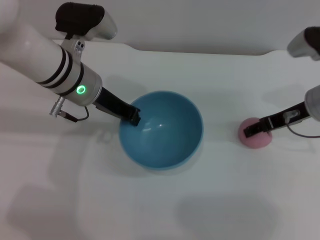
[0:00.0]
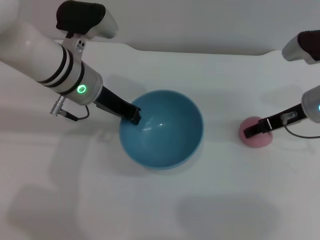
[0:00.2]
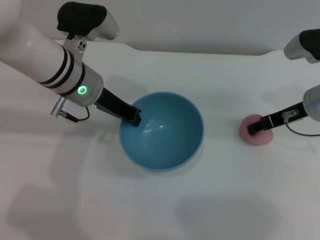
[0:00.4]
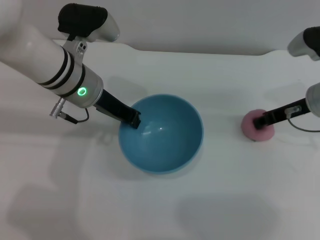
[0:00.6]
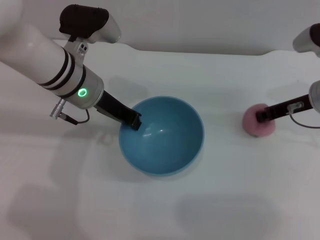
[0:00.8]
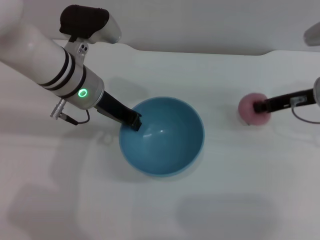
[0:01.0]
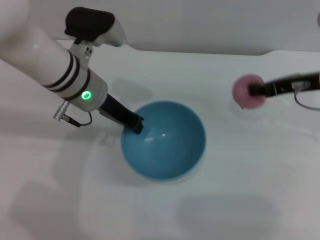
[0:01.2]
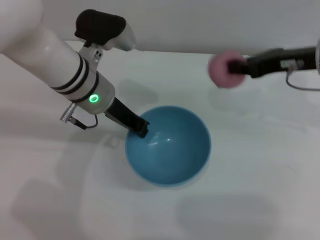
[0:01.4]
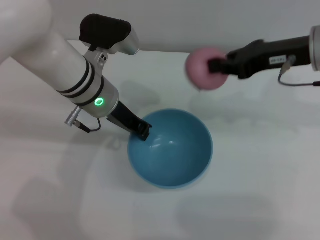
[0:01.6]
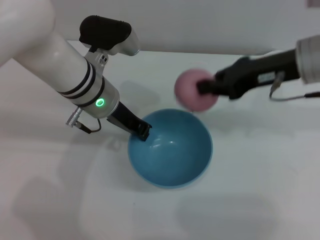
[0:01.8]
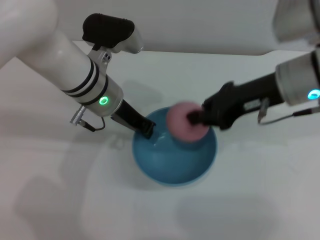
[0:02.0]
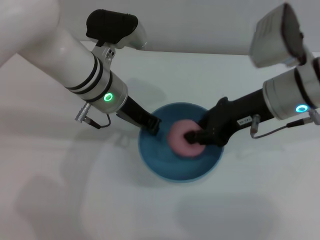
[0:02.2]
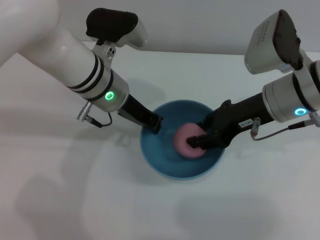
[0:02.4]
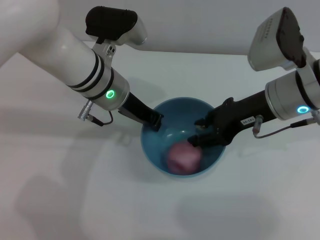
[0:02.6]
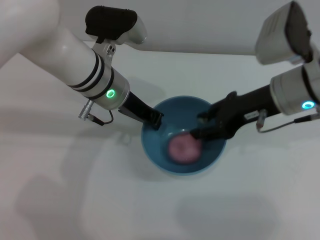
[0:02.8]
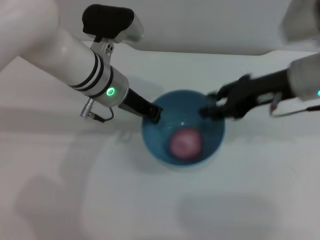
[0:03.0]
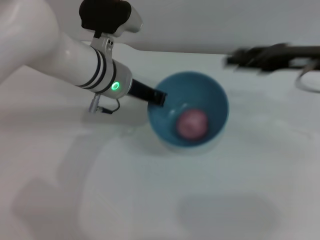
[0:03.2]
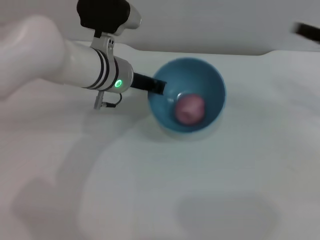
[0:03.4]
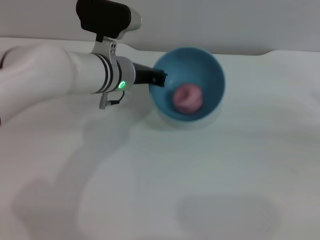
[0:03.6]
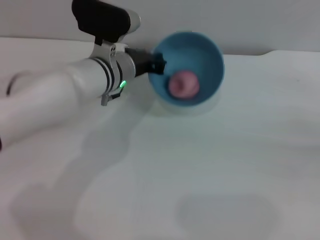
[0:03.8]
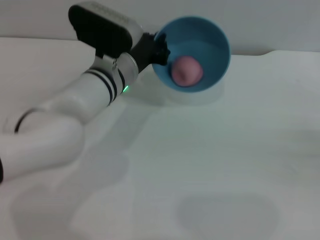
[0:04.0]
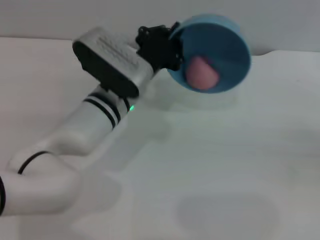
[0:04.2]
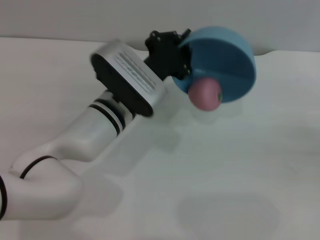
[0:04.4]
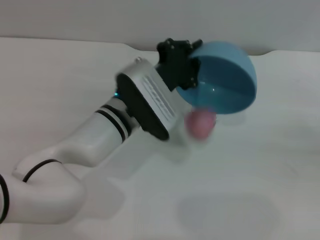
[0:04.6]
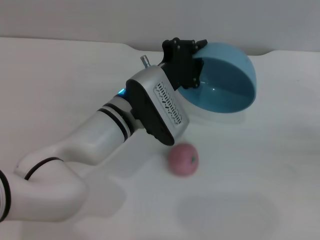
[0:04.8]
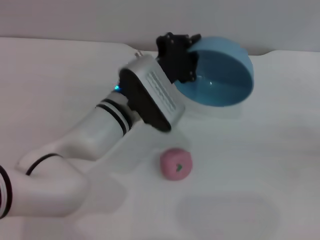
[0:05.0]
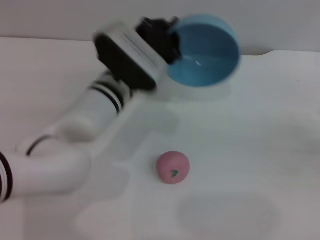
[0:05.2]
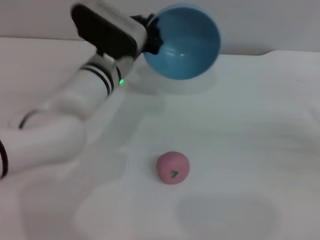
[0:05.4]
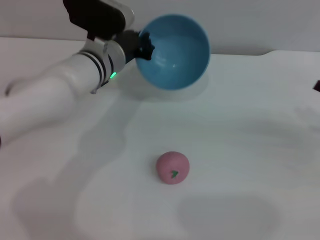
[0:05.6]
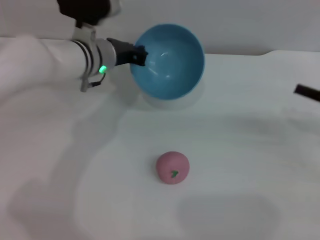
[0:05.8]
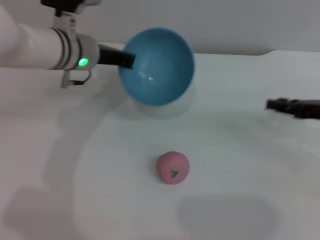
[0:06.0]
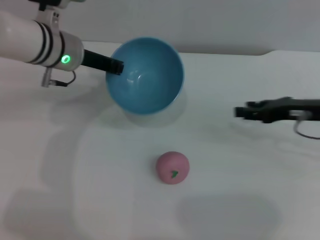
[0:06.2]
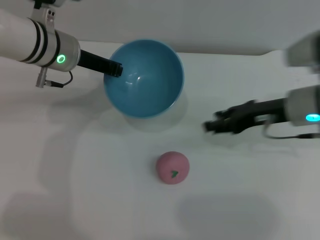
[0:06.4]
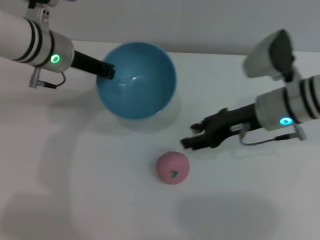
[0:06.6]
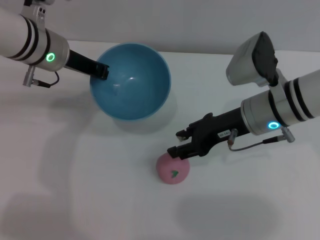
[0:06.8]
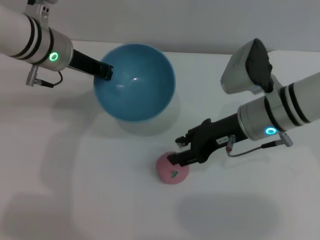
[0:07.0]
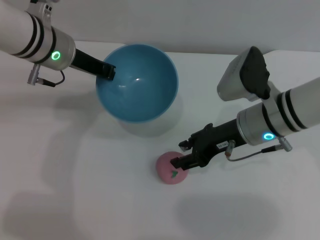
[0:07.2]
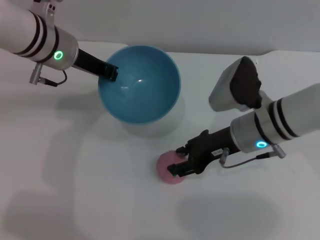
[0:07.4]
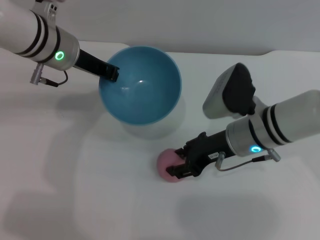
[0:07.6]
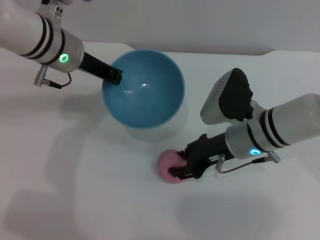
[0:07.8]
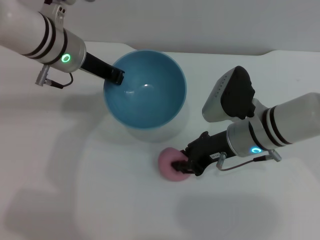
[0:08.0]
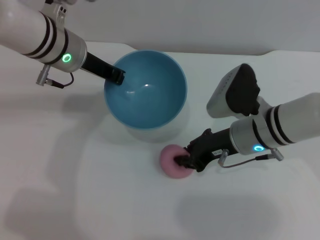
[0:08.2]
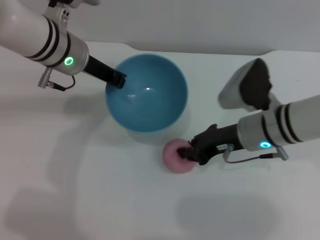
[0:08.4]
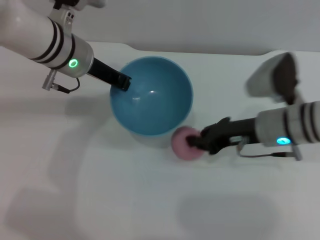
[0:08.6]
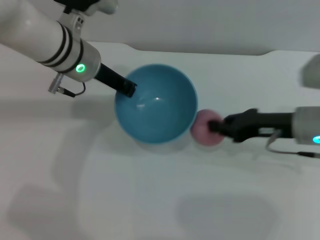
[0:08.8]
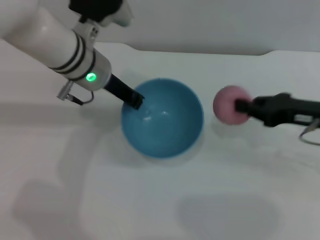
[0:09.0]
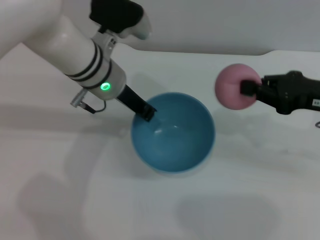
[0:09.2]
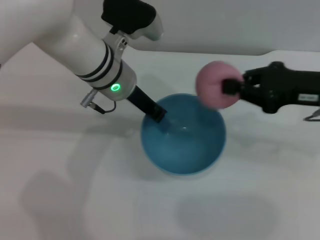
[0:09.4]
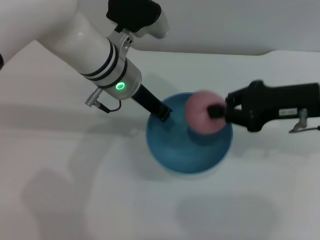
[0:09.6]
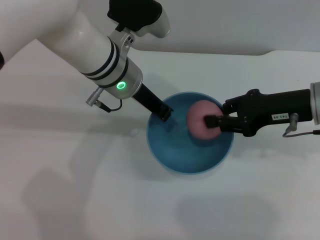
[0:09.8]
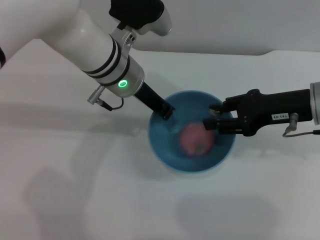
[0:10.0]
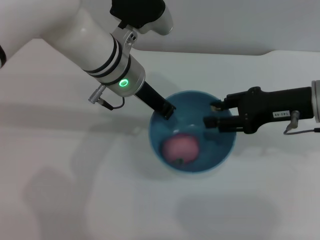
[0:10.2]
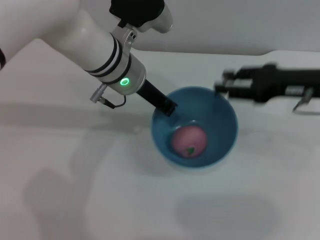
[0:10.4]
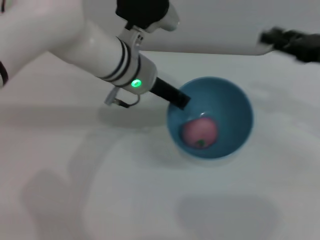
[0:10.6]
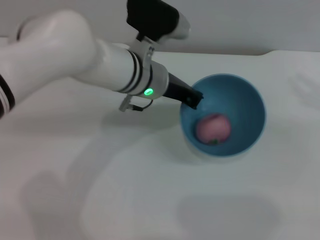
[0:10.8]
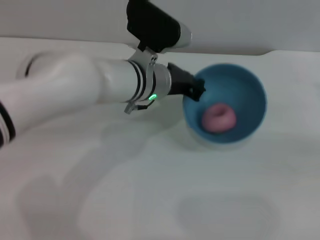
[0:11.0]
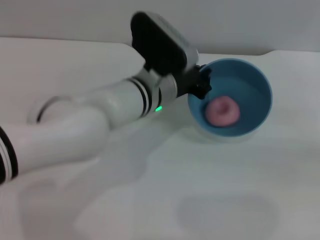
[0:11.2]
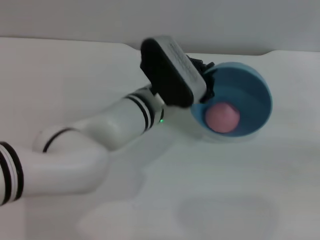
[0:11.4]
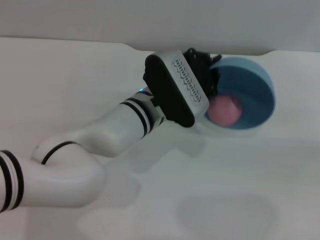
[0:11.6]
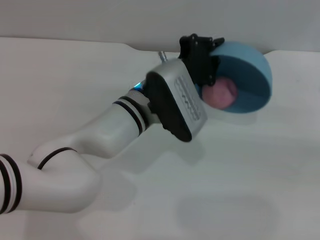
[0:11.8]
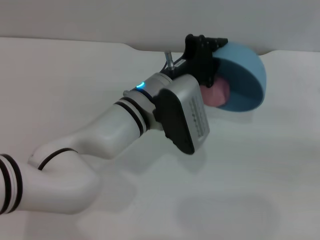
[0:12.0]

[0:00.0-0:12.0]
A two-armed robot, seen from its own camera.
Task of the whole recording: put the peach into the blue bowl and pour it out repeatedly.
Step, 1.6 to 3.2 s: Place the peach into the bowl.
Step, 3.4 to 4.6 s: Pour the peach out of bowl.
Step, 4.8 to 8.6 s: Pick up the peach with the right gripper.
Step, 8.8 to 10.0 s: Place the peach into the bowl.
0.0 to 1.6 s: The right gripper is displaced upward by roughly 10 cm, and closes up.
1.6 to 3.0 s: The right gripper opens.
3.0 to 4.4 s: The right gripper goes approximately 25 cm to the right and downward. Meanwhile the left gripper heads downward, covering about 5 cm.
4.4 to 6.0 s: The left gripper heads to the left, forward and upward, covering some 15 cm; the right gripper heads to the left and forward, covering some 10 cm.
6.0 to 7.6 s: The right gripper moves to the left, roughly 20 cm.
7.6 to 9.0 s: The right gripper goes roughly 15 cm to the right, and closes. The left gripper shifts by roughly 5 cm.
9.0 to 10.4 s: The right gripper changes place by roughly 5 cm, and opens its fingers.
10.4 to 12.0 s: The left gripper shifts approximately 10 cm downward and backward; the right gripper heads to the right and backward, covering some 15 cm.

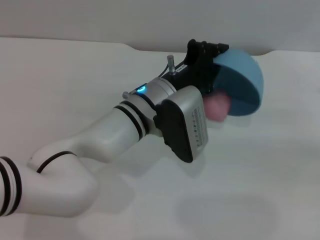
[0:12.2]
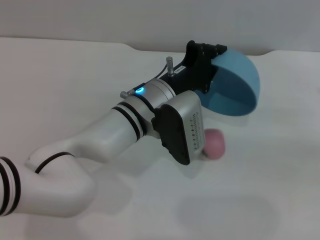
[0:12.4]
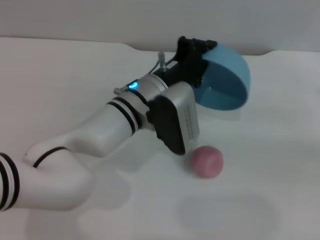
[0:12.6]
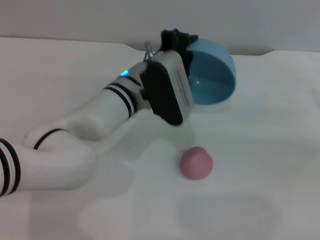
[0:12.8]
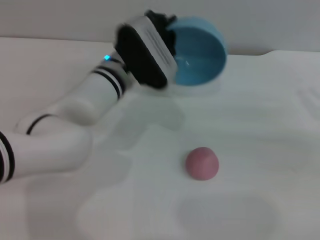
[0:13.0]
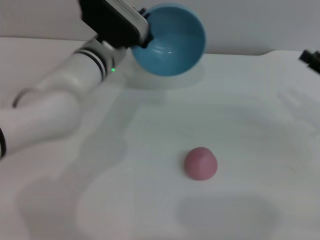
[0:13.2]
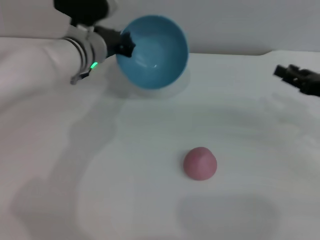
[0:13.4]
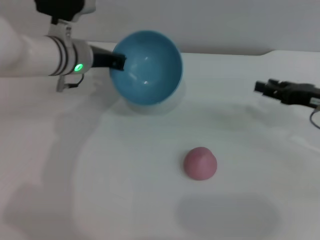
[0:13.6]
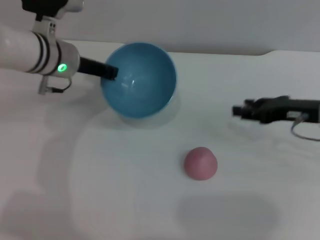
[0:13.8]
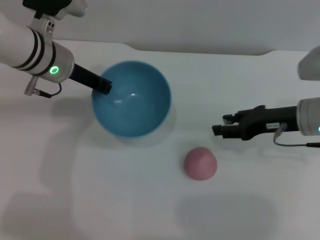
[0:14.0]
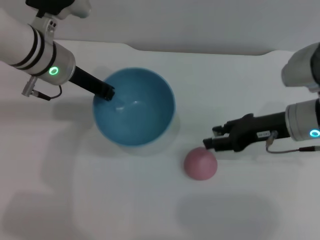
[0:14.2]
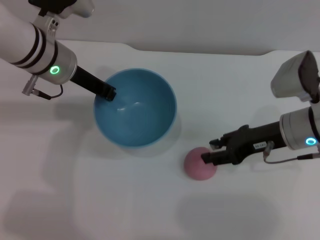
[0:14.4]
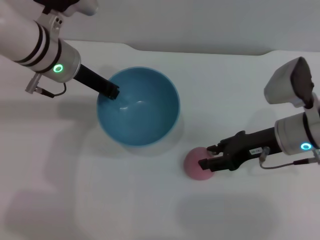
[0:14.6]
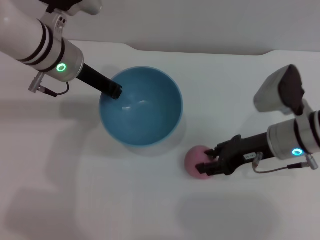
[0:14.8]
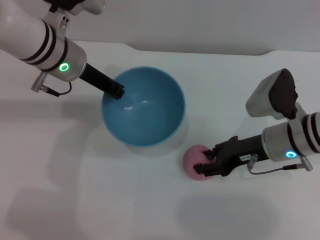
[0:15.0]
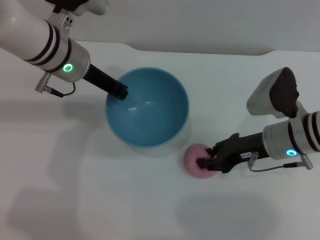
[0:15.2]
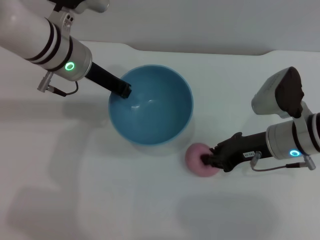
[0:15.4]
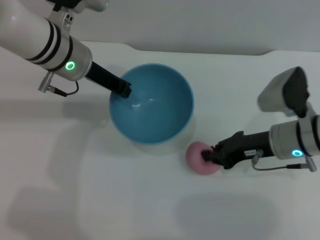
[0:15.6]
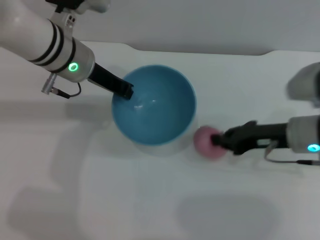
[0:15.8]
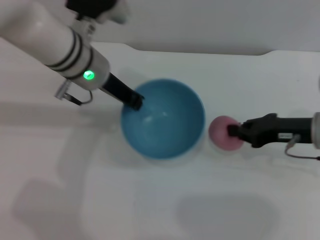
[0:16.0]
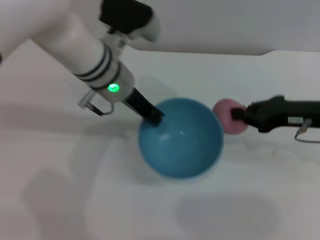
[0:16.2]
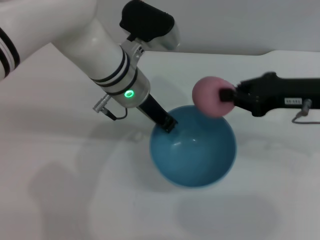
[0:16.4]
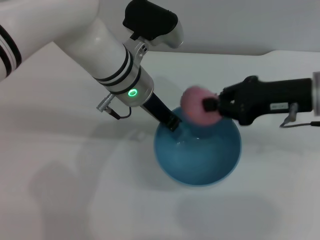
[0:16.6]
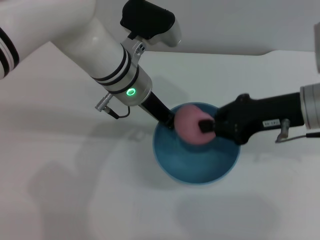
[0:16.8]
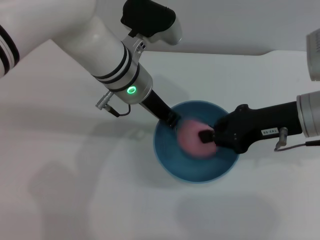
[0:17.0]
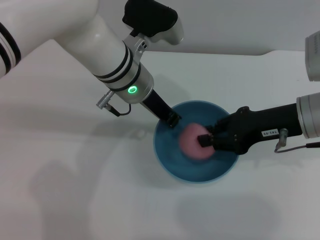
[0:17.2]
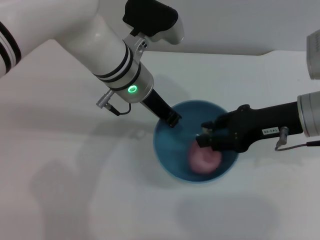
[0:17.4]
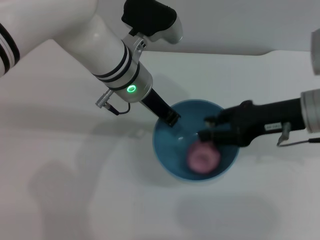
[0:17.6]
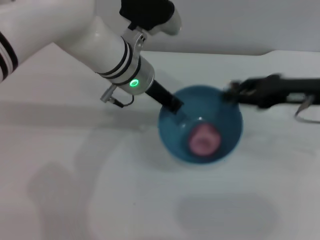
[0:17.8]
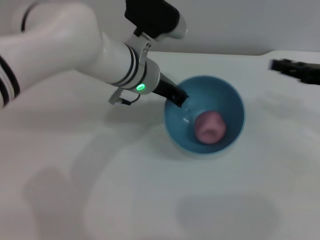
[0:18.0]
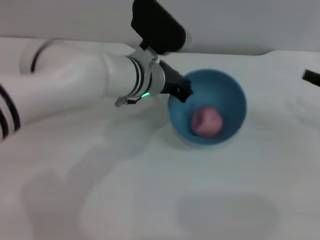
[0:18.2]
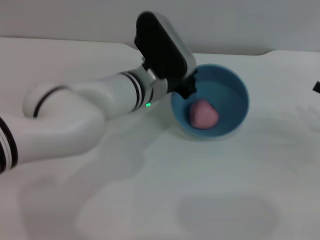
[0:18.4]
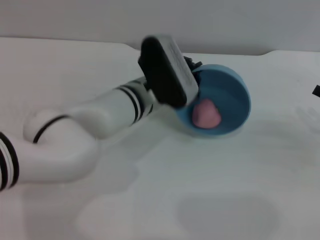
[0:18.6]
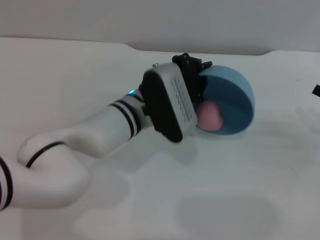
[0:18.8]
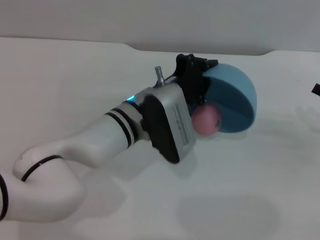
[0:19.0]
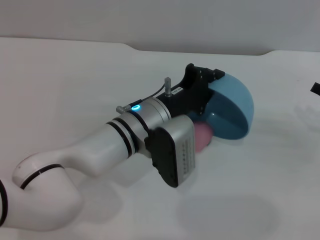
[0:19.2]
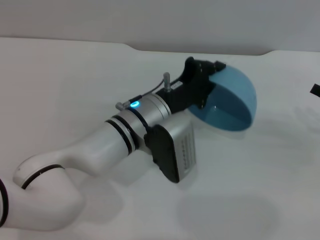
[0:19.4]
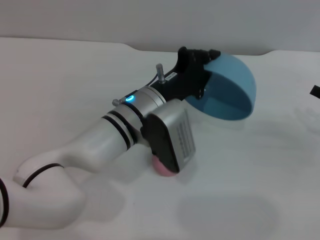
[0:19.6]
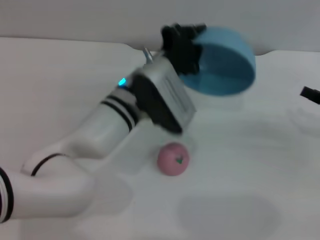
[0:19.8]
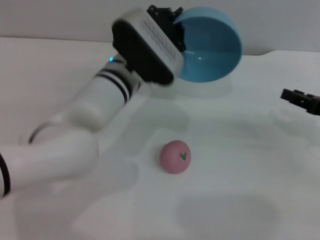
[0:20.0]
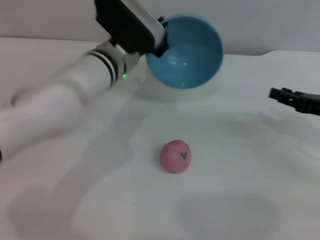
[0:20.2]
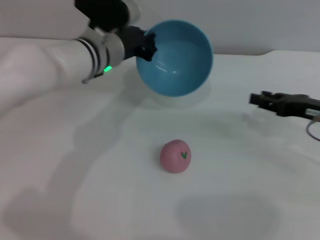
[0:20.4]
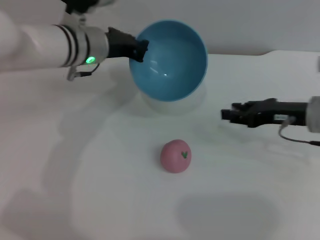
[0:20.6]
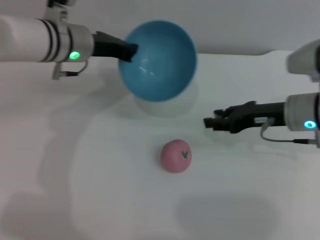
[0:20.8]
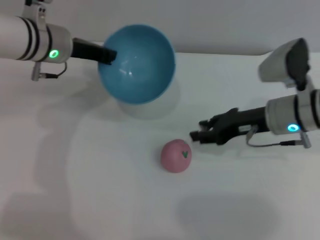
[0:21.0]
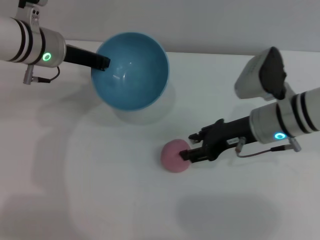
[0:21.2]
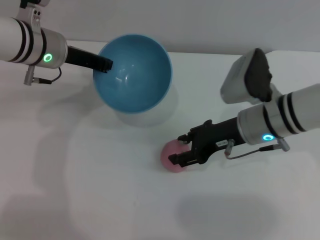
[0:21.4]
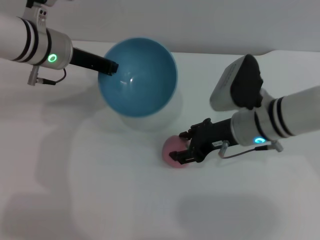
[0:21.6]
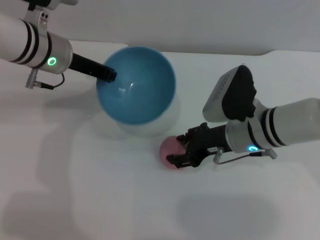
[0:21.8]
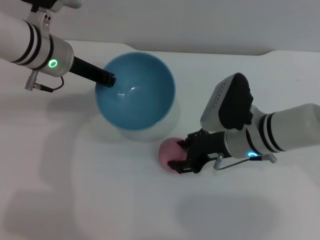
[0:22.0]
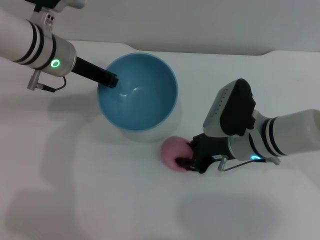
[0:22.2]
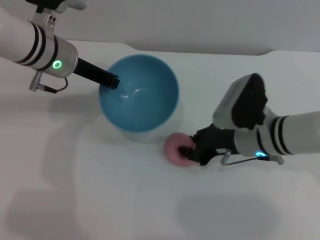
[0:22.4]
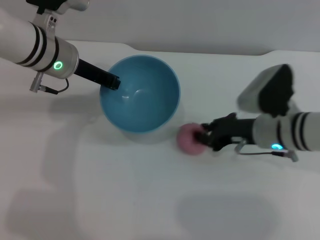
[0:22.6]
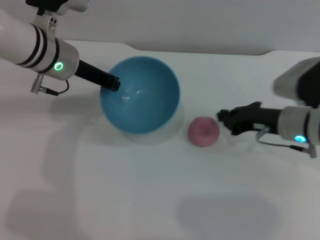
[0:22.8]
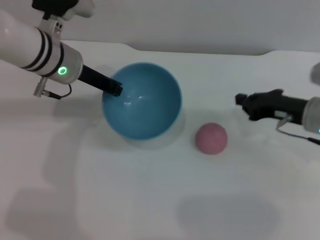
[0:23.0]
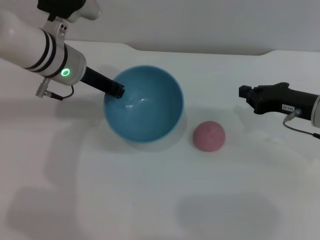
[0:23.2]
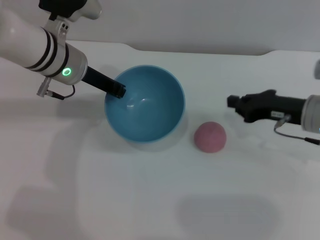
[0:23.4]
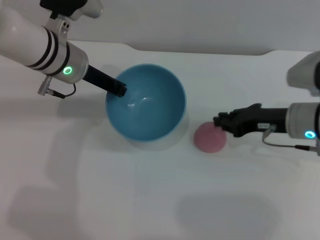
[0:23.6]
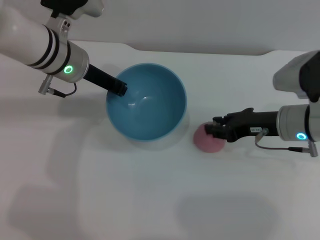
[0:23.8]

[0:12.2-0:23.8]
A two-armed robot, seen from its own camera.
Task of the whole recording: put the peach into the blue bowl and pour it out repeatedly.
Step, 12.4 to 15.8 s: Pick up the peach with the right gripper.
Step, 16.0 to 17.4 s: Place the peach into the bowl.
Step, 17.6 to 19.2 s: Pour the peach out of bowl.
12.2 to 13.6 s: Both grippers move to the left and forward, about 15 cm.
13.6 to 15.0 s: The left gripper travels upward by approximately 5 cm, while the right gripper goes about 10 cm to the left.
15.0 to 16.6 s: The left gripper is displaced to the right by some 10 cm. Meanwhile the right gripper travels upward by approximately 10 cm, and closes its fingers.
16.6 to 18.0 s: The right gripper is displaced to the right by some 10 cm, and opens up.
18.0 to 19.4 s: The right gripper goes approximately 5 cm downward. The left gripper goes roughly 10 cm backward and downward.
19.4 to 21.0 s: The left gripper goes roughly 20 cm to the left, forward and upward, while the right gripper travels to the left by about 20 cm.
21.0 to 22.4 s: The right gripper changes place by roughly 5 cm.
22.4 to 23.8 s: The right gripper goes roughly 5 cm to the right, and closes up.
